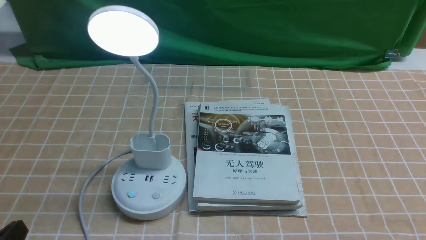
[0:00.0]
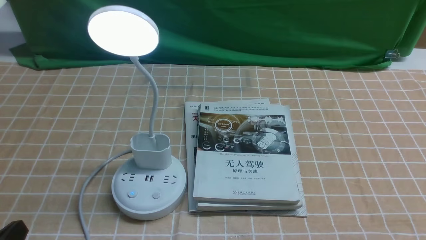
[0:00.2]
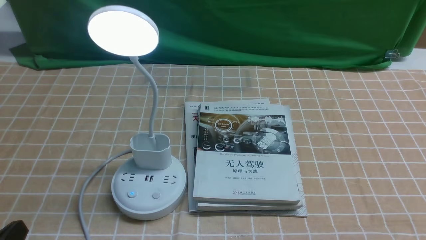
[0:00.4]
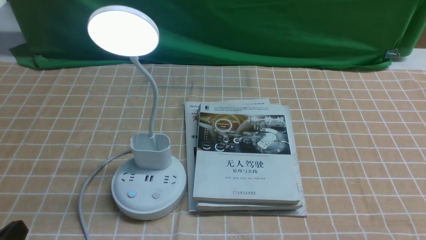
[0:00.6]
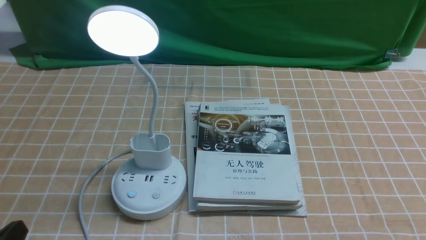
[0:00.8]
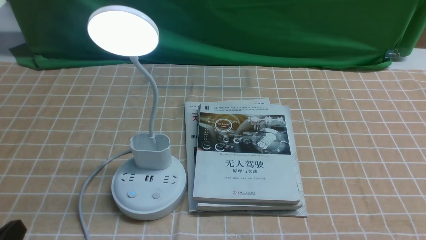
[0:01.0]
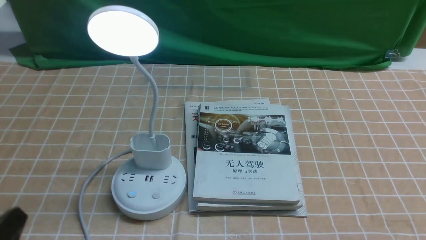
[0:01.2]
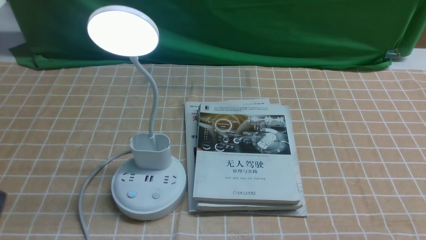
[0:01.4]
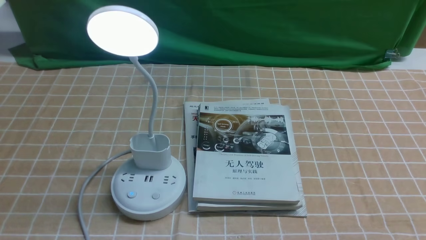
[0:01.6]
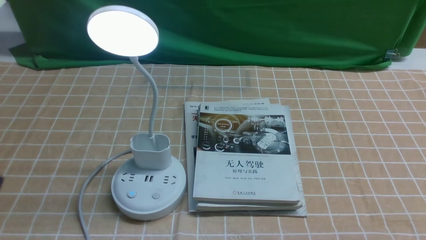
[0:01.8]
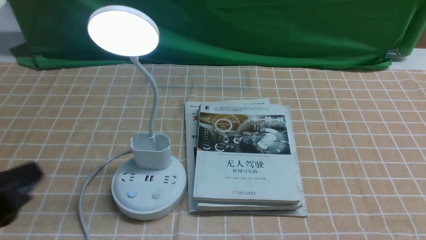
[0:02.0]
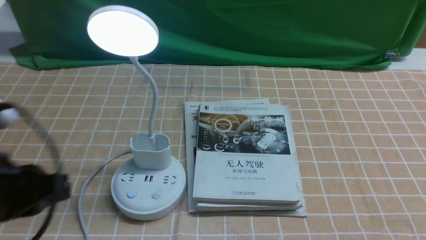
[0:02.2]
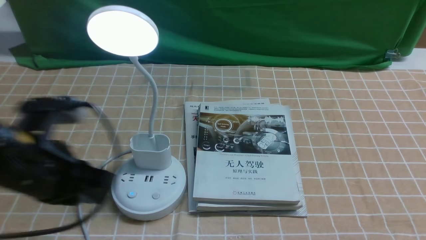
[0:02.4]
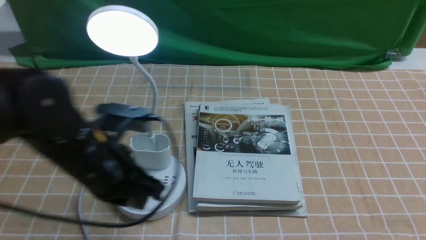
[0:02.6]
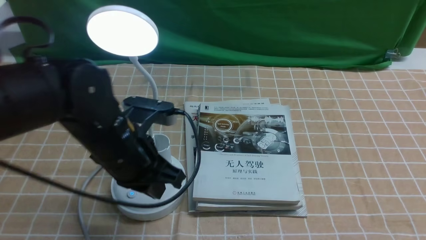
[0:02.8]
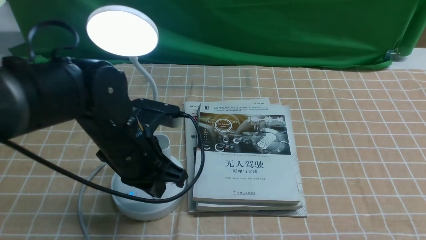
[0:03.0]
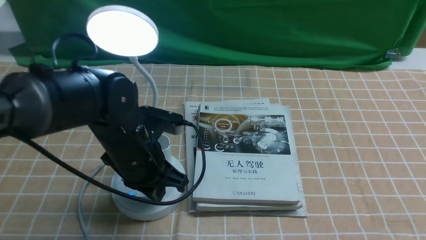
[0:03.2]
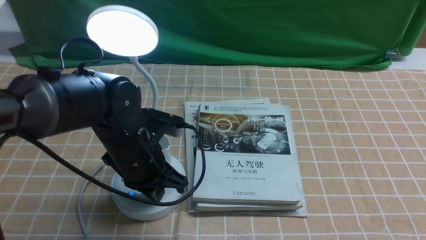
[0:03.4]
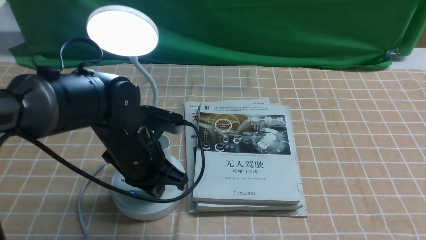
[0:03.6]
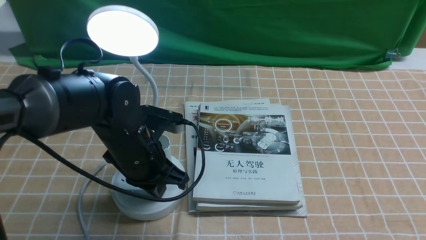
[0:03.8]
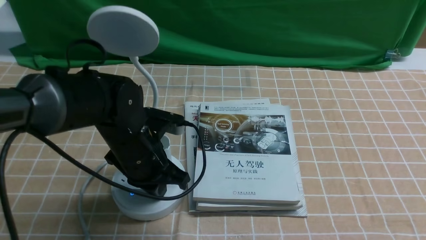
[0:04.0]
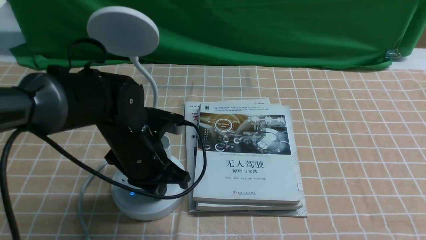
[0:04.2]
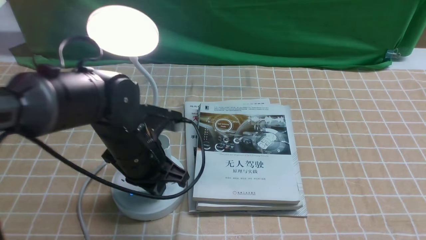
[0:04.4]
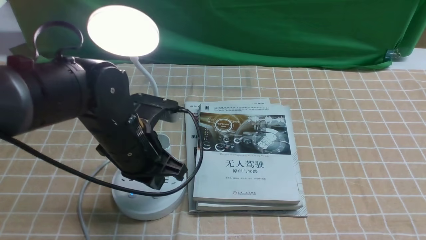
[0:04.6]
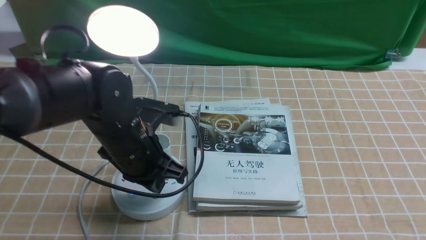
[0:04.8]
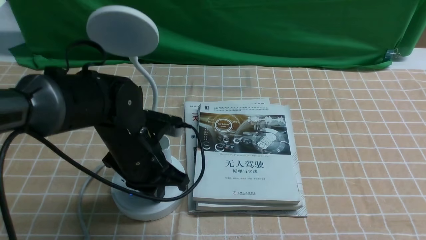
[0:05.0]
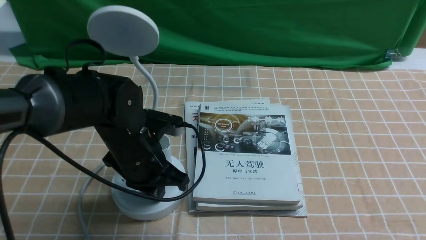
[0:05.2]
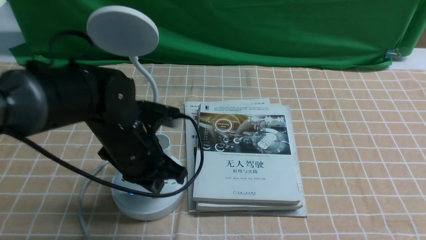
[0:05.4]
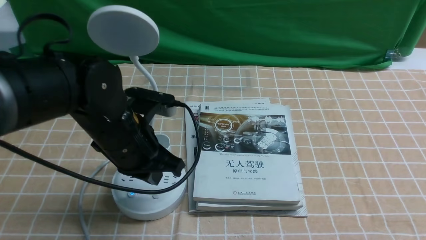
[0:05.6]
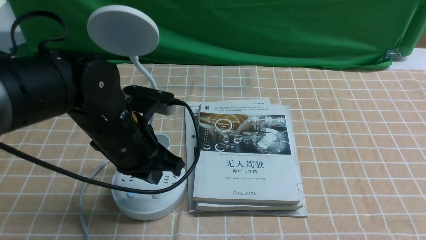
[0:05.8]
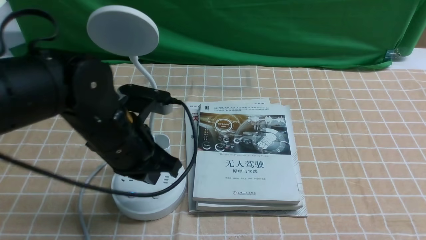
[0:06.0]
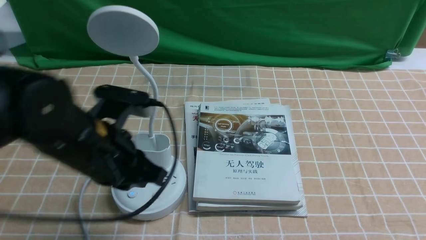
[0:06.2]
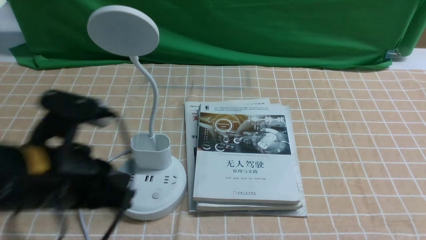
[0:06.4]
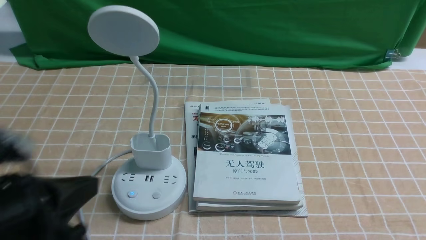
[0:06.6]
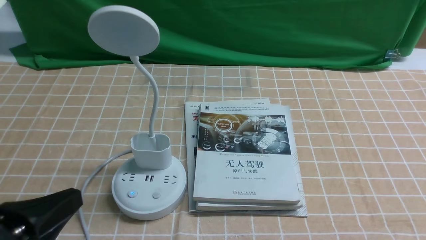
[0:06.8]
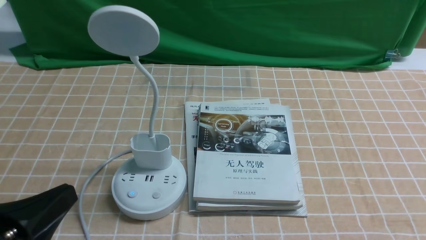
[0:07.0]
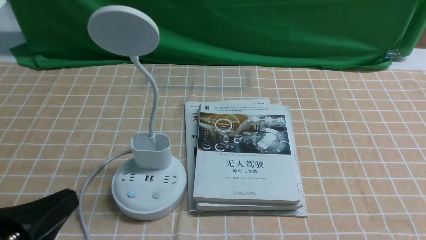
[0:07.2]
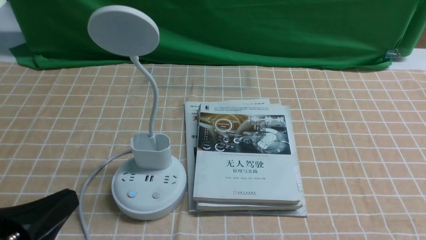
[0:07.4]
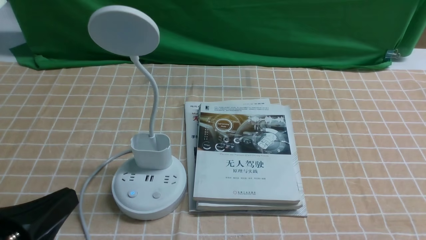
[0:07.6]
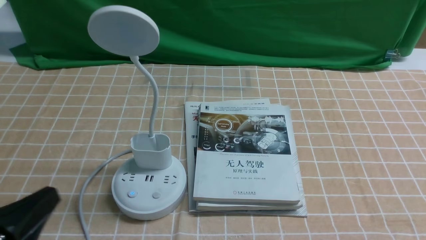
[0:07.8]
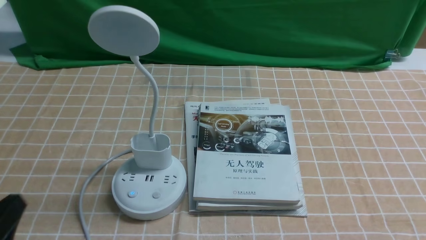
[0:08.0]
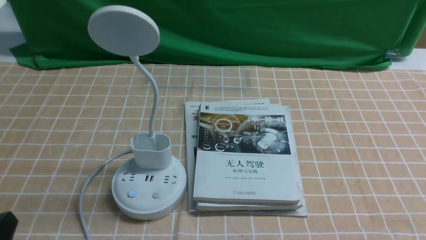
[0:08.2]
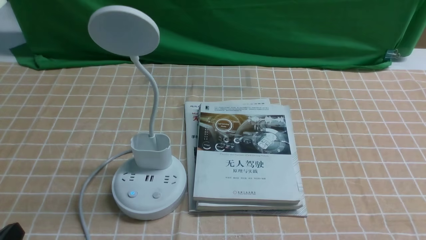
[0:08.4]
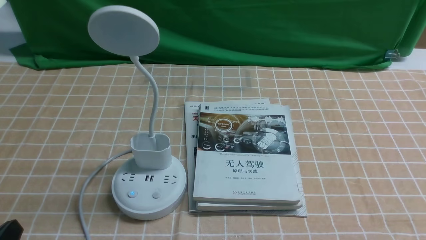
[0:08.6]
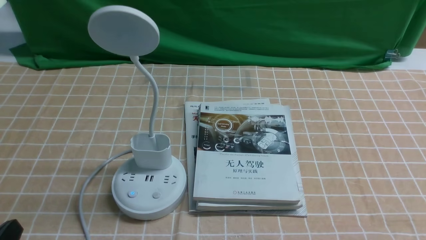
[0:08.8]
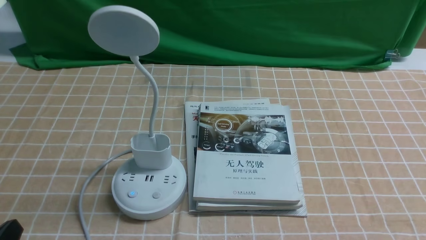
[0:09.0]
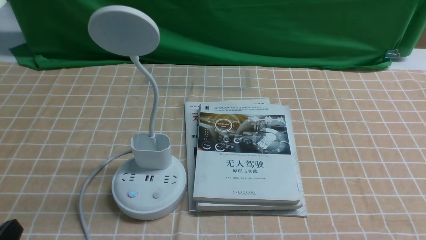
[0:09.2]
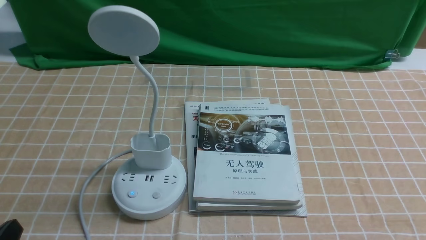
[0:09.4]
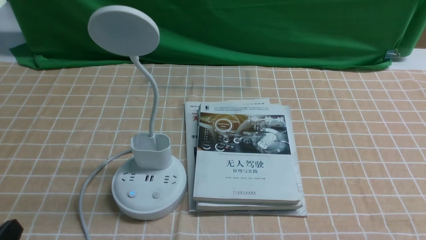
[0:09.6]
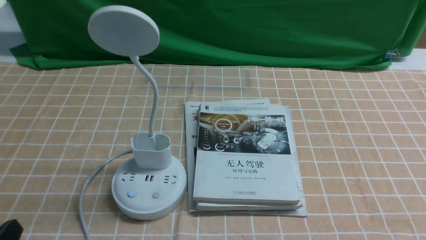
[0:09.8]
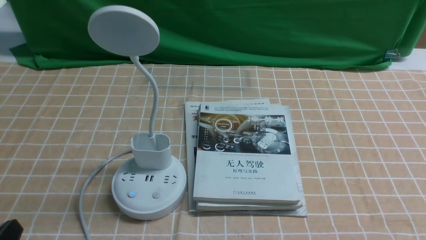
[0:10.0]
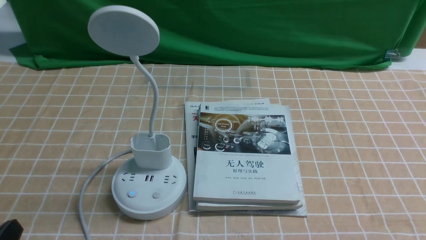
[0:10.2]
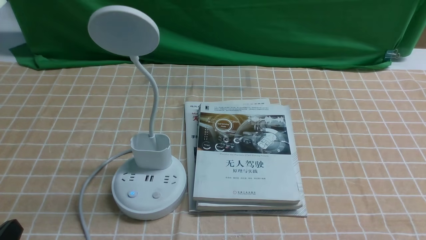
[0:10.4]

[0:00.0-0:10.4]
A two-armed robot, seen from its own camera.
Task of the whole recording: turn off the desk lamp on the light coffee tablecloth by hand.
Step, 0:00.0 to 0:05.4: use the left arm to press the button switch on the lamp holder.
0:01.4 to 0:03.0: The left gripper shifts roughly 25 cm forward and to the right, and closes up.
0:03.0 to 0:04.4: The left gripper opens its fingers.
0:04.4 to 0:06.0: The left gripper changes place by approximately 5 cm.
0:06.0 to 0:07.4: The left gripper heads backward and to the left, covering some 20 cm.
0:07.4 to 0:09.0: The left gripper shifts approximately 5 cm downward.
0:09.0 to 0:10.4: Neither gripper changes place.

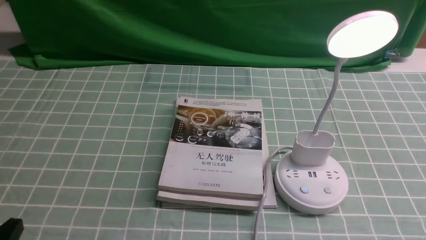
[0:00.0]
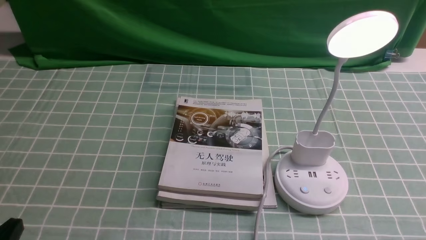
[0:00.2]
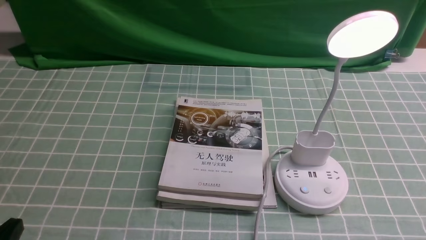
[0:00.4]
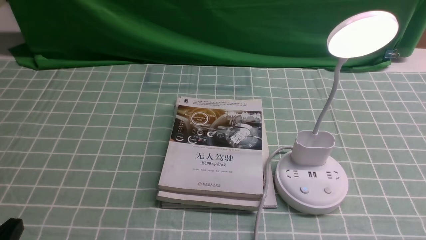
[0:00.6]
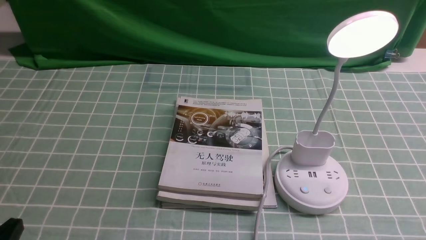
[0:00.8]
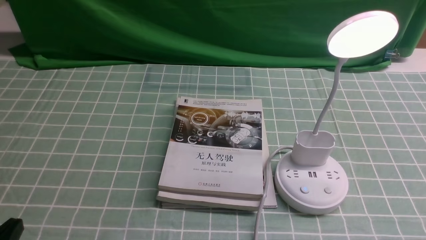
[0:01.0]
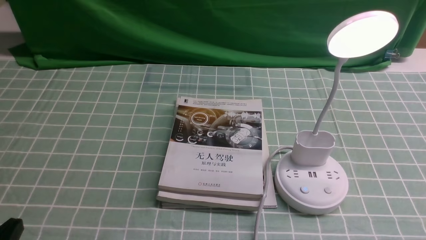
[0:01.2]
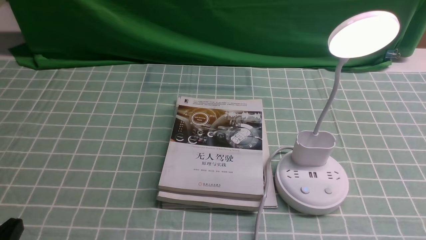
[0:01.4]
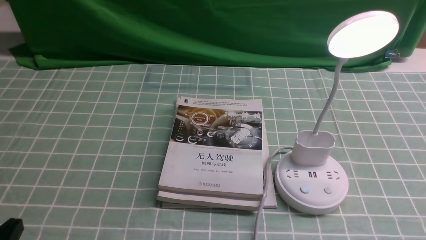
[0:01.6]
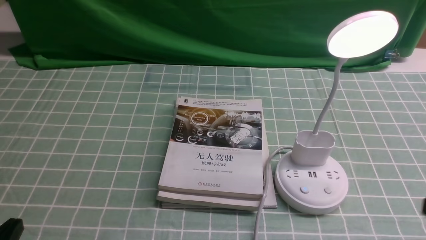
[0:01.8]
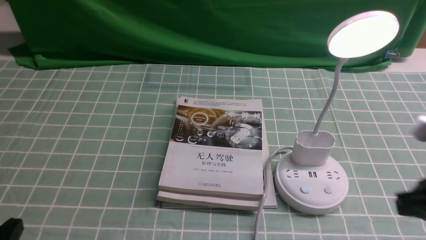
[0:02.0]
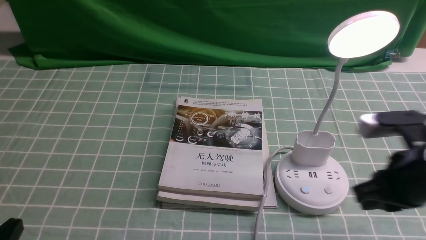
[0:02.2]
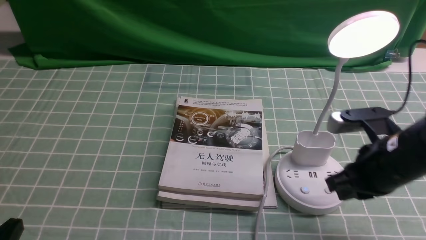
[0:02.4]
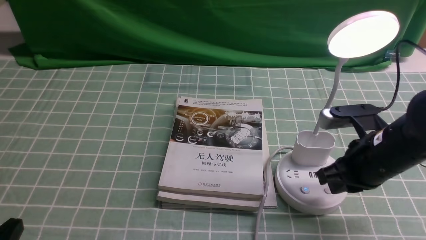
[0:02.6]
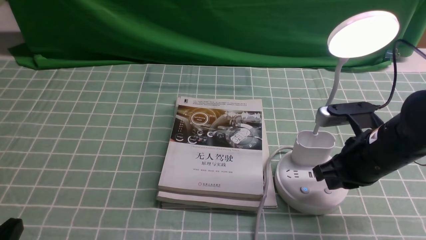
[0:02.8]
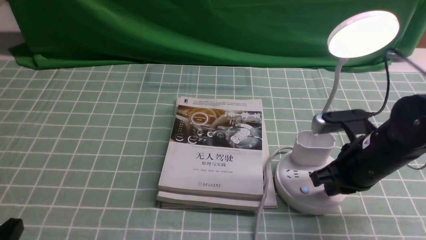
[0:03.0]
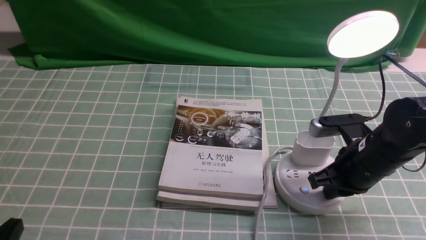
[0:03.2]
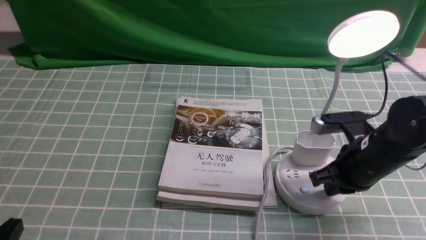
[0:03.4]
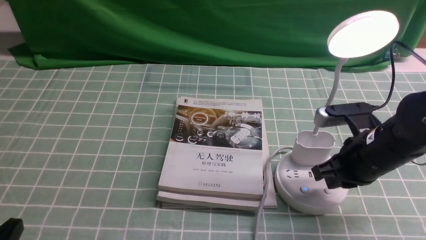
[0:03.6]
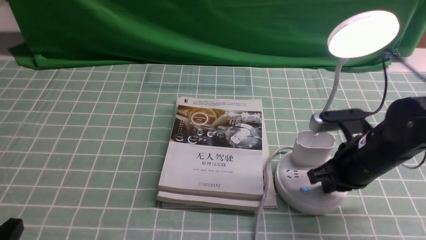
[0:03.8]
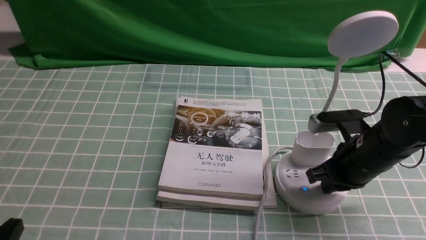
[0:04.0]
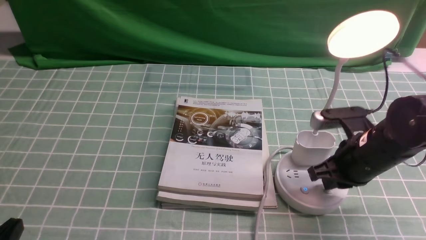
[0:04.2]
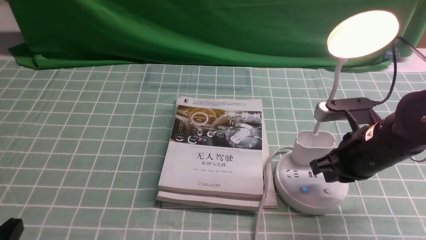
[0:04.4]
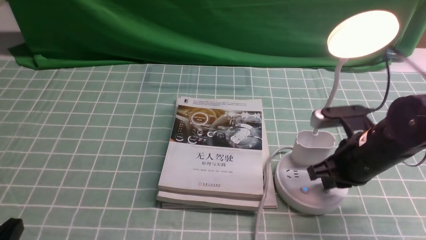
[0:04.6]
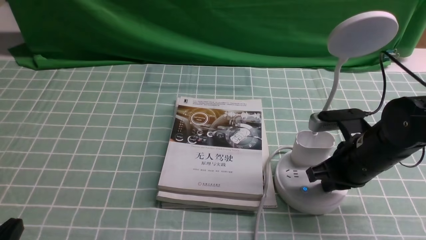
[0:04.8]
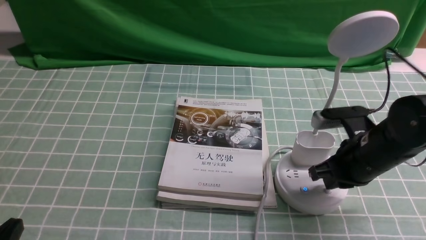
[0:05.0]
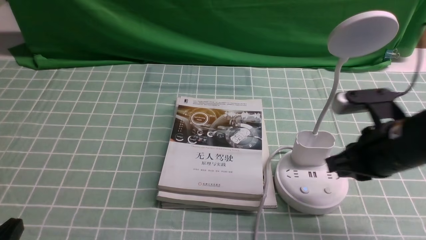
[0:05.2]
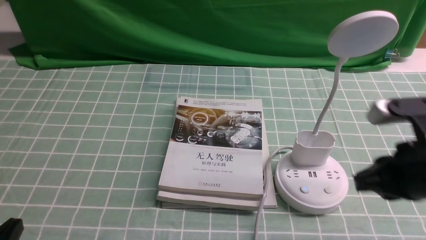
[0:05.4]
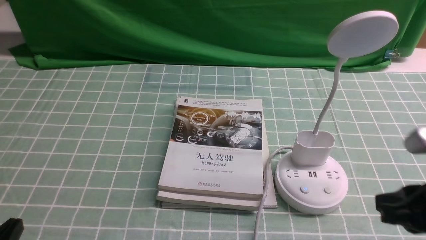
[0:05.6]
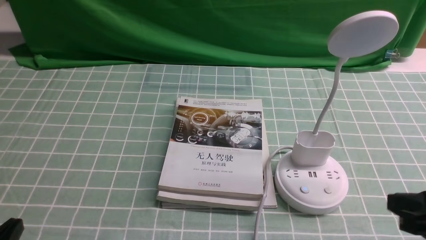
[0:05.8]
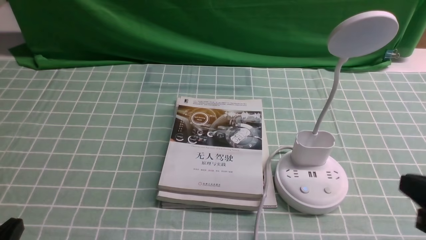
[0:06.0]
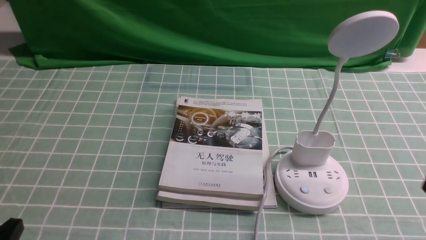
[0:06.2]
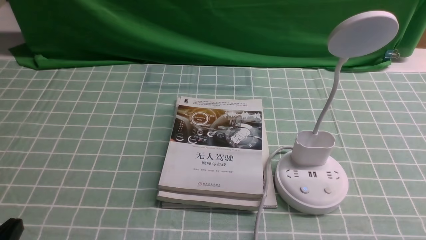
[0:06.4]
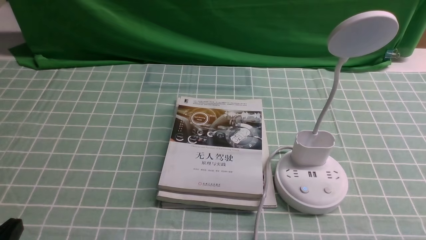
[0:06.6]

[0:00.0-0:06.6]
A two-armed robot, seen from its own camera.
Task of the whole recording: turn off the desk lamp on the blue coffee tablecloth by hand.
Step, 0:00.0 to 0:05.0: use the right arm to press the button switch on the lamp holder.
0:01.6 to 0:03.2: The right gripper shifts some 20 cm forward and to the left.
0:03.2 to 0:05.0: The grippers make only small movements.
0:05.0 to 0:06.6: The right gripper shifts approximately 25 cm backward and to the right.
